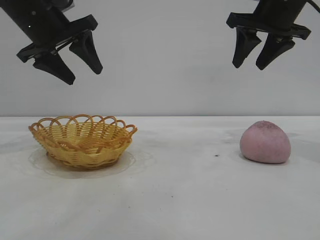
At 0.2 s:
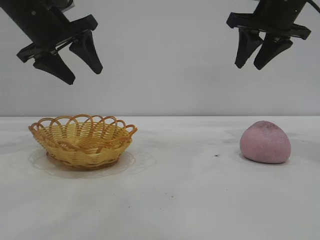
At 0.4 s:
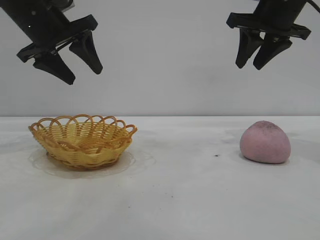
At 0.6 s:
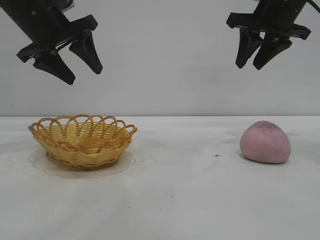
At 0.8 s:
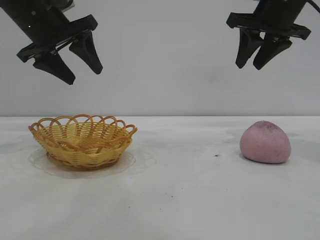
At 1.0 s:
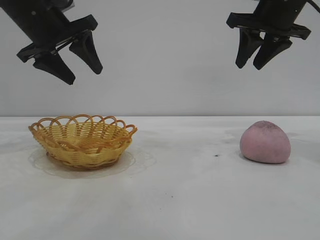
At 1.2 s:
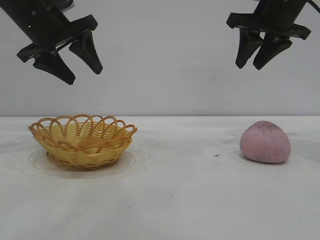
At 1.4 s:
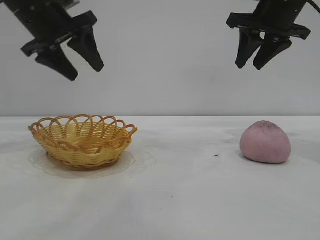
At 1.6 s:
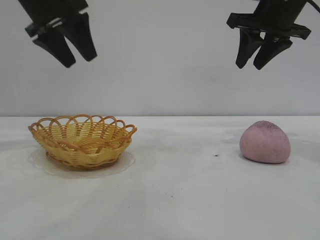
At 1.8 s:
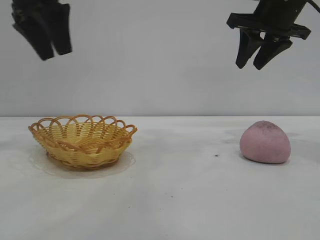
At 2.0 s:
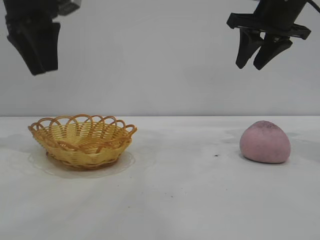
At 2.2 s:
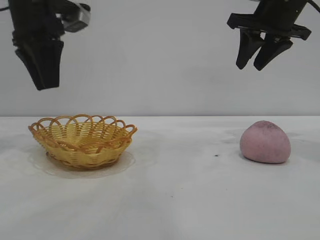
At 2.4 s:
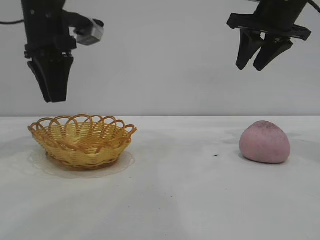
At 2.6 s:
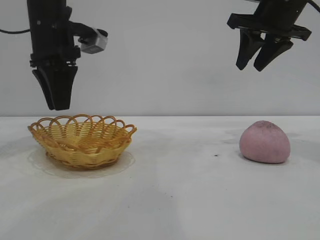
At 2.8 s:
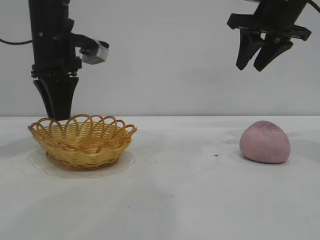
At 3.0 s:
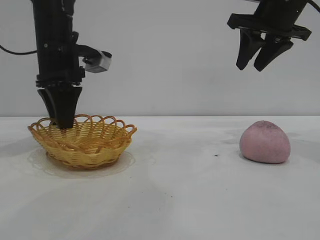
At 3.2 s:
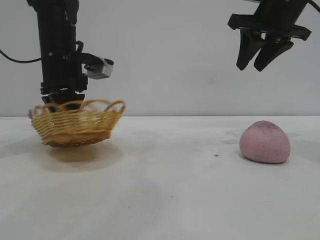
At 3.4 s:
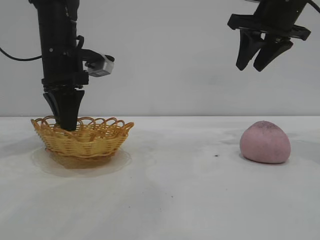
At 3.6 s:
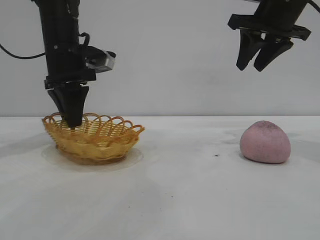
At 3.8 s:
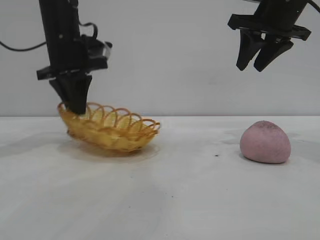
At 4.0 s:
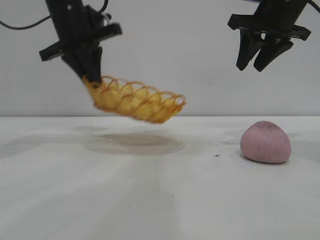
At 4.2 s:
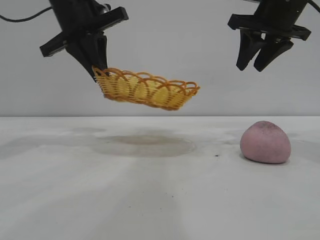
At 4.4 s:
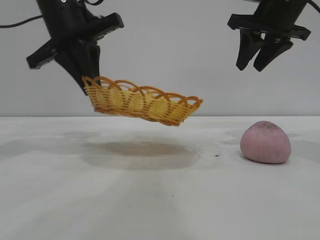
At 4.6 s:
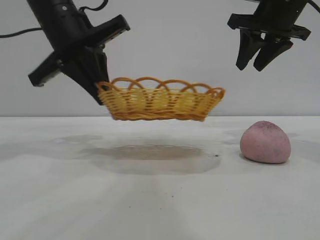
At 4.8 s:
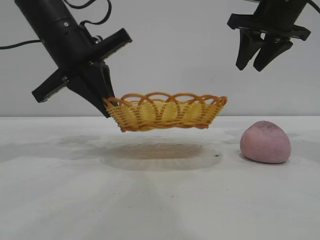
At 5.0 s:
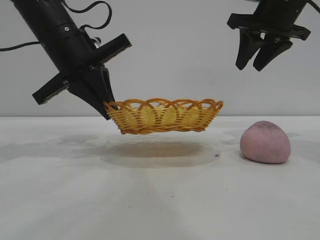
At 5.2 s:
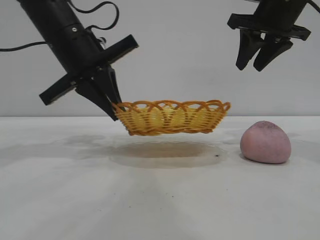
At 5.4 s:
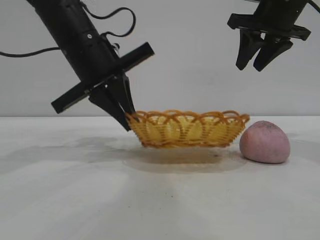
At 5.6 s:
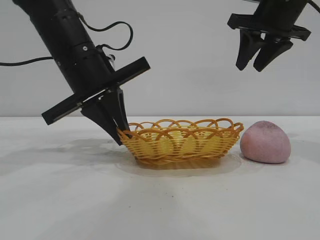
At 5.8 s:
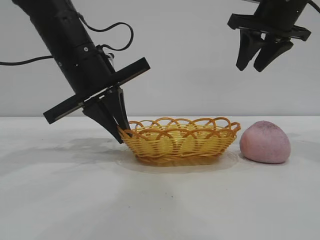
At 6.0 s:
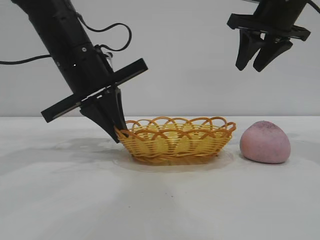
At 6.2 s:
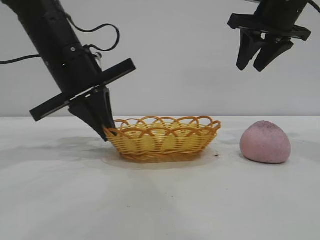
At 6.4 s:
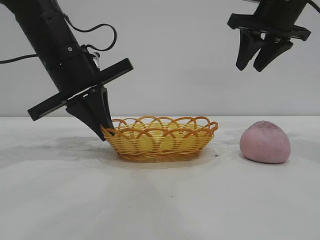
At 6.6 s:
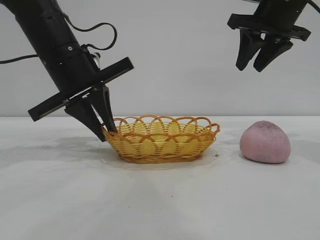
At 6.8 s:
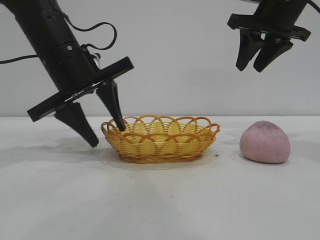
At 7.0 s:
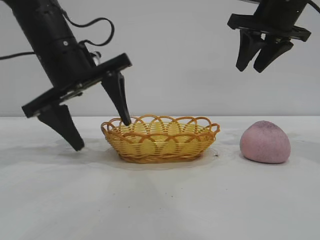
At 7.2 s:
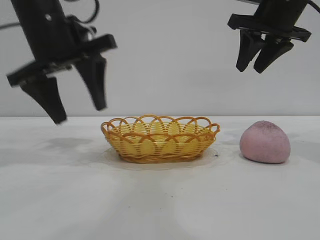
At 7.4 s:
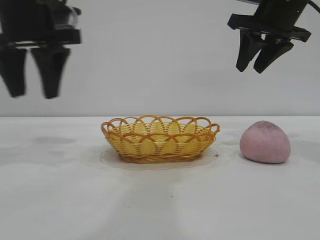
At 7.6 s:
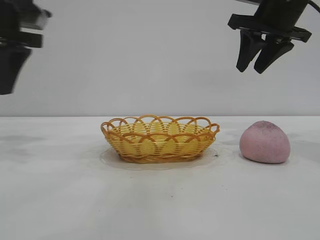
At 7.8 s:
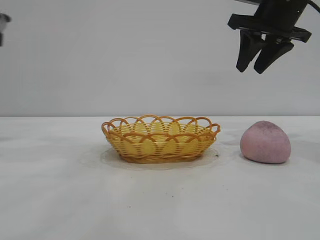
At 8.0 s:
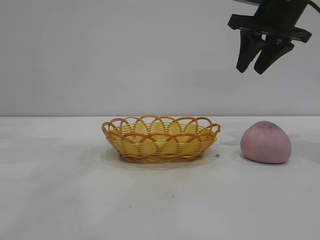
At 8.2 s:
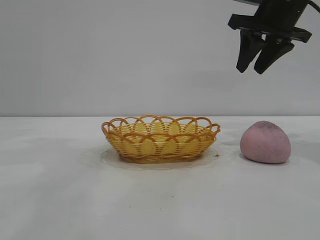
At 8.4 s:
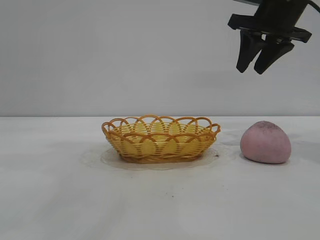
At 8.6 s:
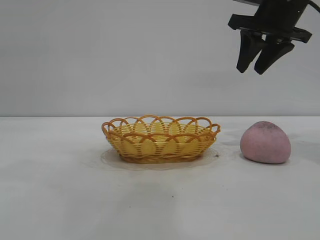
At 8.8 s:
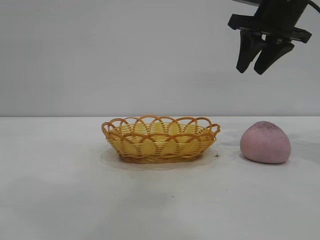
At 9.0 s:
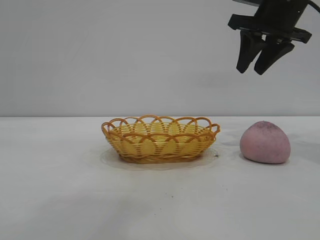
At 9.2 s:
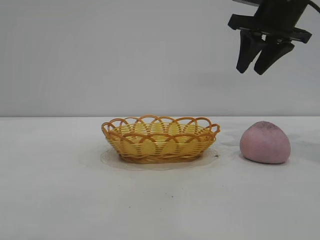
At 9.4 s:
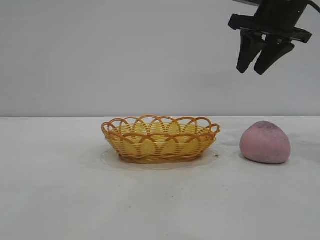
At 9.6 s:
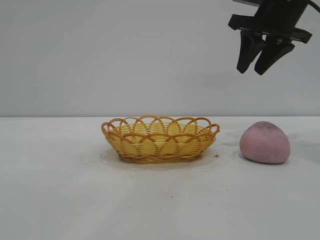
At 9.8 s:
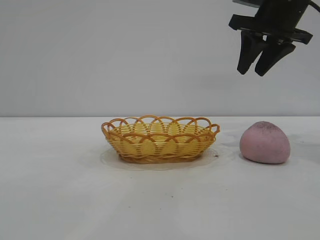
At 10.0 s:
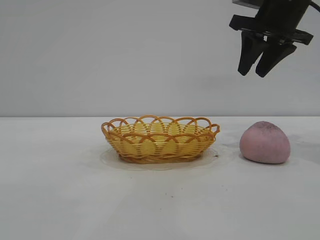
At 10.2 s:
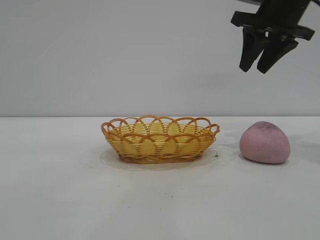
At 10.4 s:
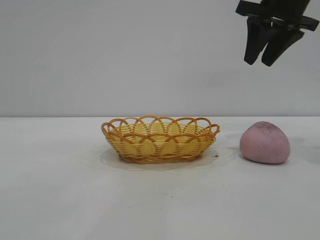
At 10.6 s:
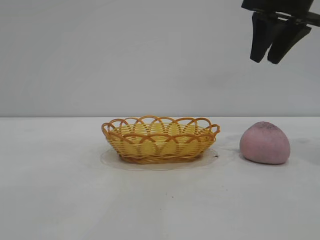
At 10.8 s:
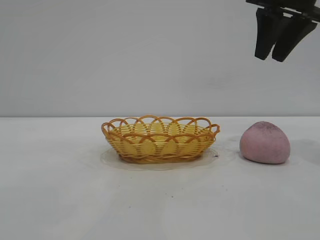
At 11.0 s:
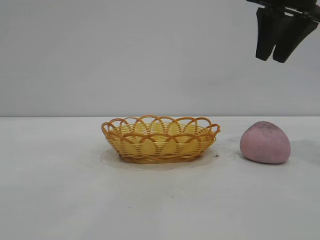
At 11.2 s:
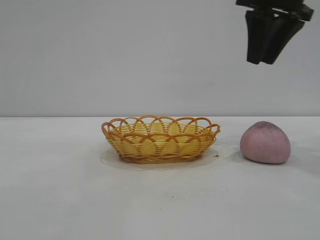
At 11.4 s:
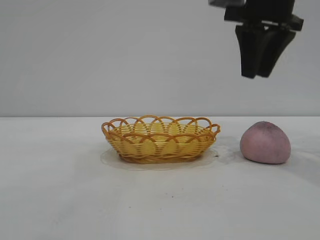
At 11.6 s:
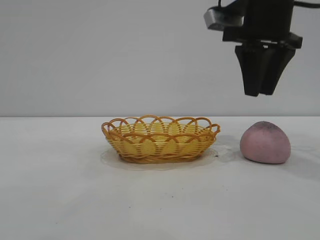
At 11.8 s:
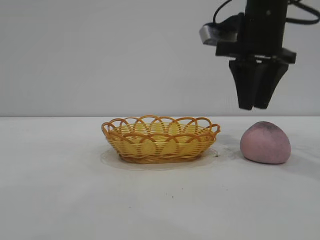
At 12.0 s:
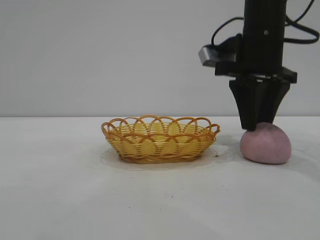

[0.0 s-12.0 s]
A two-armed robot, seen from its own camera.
Task of the whole recording: pick up the peach and put it into the basket.
Step, 0.0 to 7.2 s: Move the basket to the center of view.

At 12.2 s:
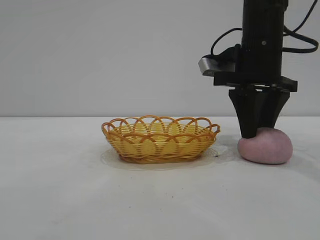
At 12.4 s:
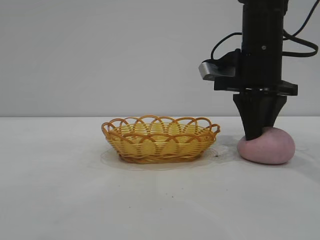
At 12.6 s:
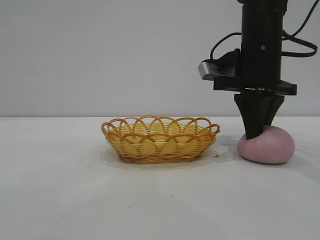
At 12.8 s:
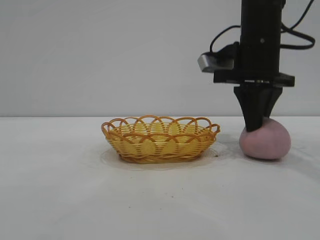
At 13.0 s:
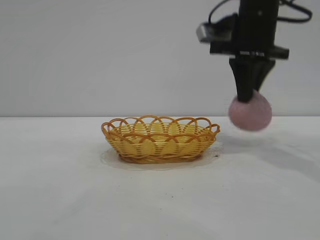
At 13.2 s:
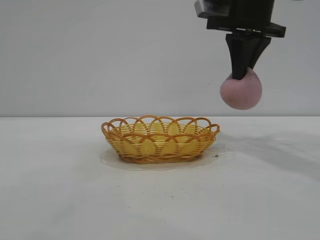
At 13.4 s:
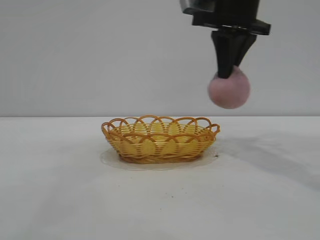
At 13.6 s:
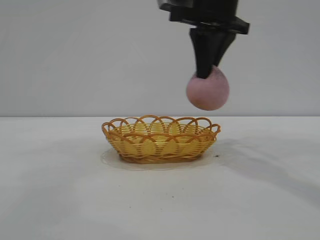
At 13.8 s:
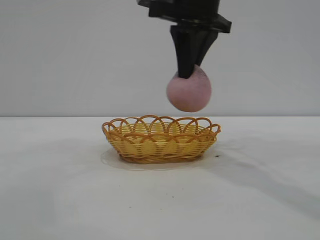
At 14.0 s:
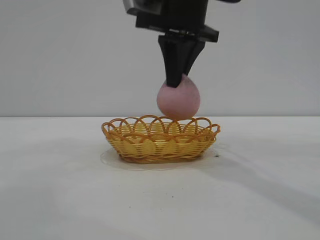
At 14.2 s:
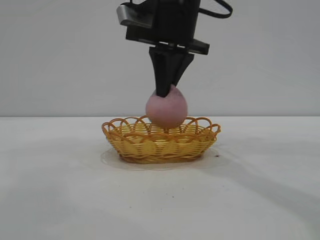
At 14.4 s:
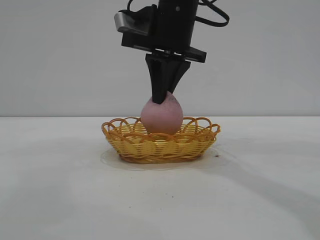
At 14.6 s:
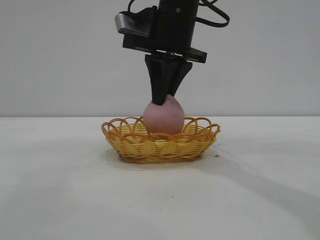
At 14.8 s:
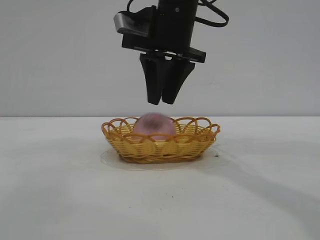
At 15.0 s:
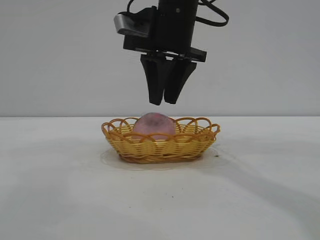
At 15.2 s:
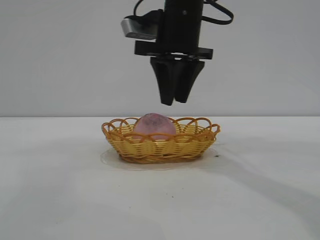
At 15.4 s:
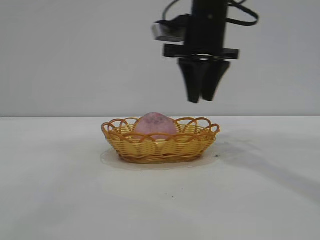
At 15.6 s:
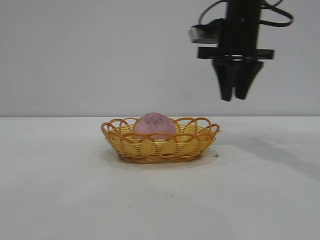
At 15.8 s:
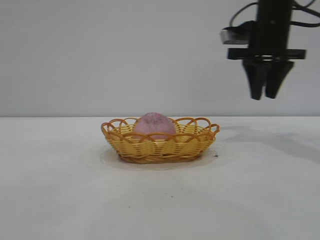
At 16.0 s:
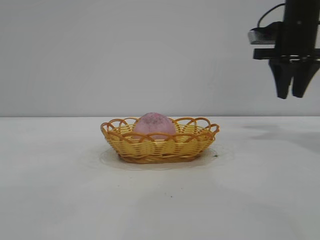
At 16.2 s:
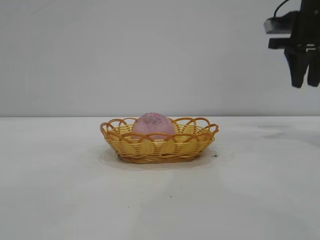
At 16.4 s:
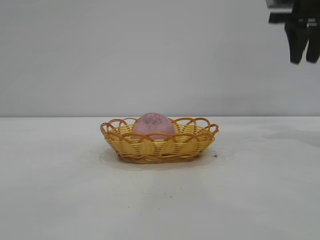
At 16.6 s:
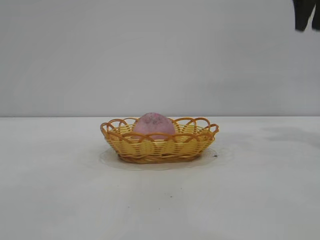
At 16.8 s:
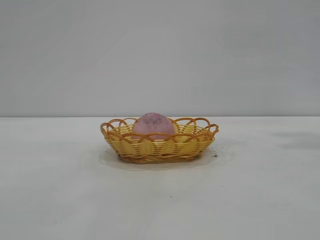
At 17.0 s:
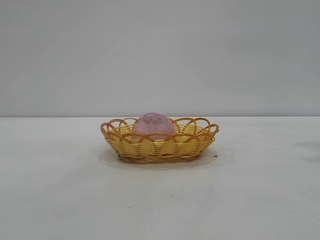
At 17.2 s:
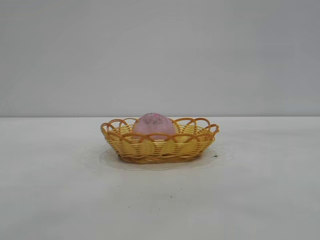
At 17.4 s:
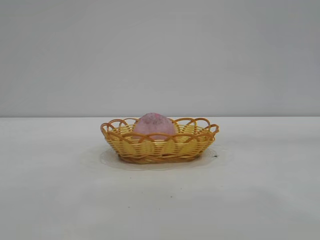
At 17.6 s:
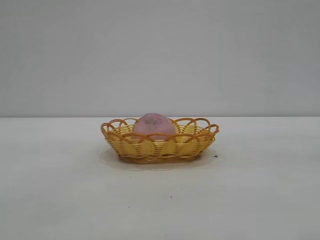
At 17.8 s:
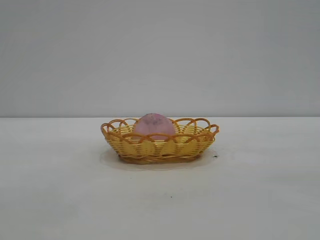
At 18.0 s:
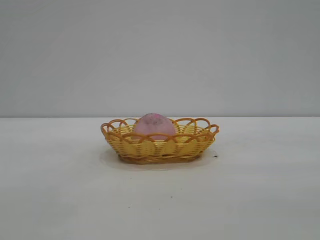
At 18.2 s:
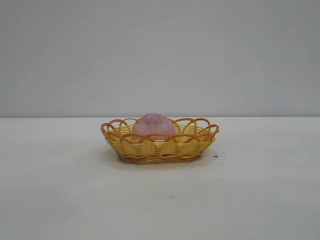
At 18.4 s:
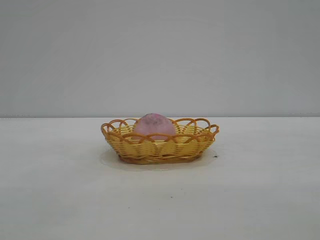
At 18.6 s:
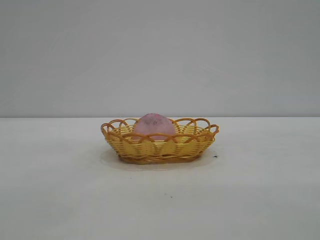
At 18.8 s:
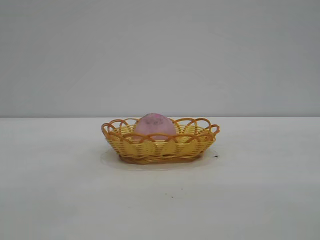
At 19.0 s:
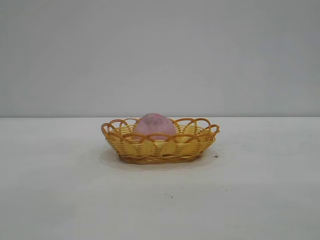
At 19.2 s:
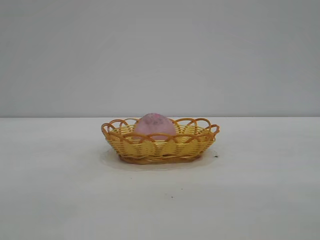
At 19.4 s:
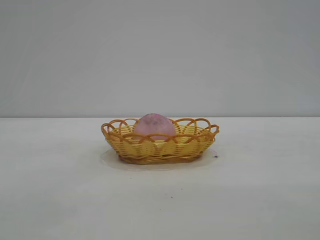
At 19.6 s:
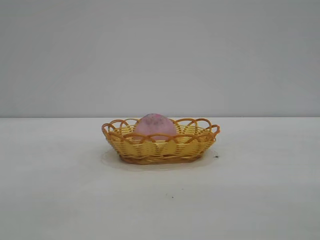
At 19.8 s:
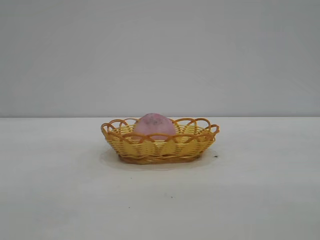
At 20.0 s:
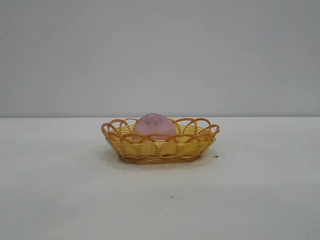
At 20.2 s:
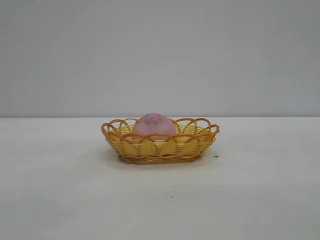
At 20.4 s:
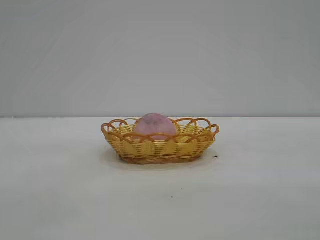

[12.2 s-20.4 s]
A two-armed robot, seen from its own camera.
Task of the whole recording: pick up the peach and put it into the basket.
Step, 13.4 to 15.4 s: place the peach into the basket.
